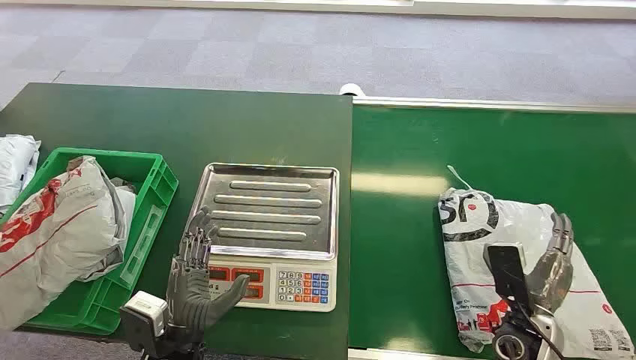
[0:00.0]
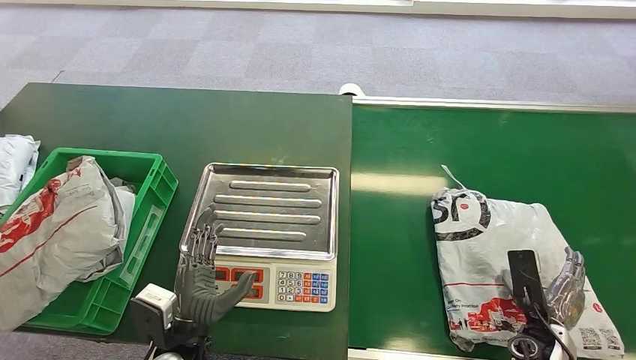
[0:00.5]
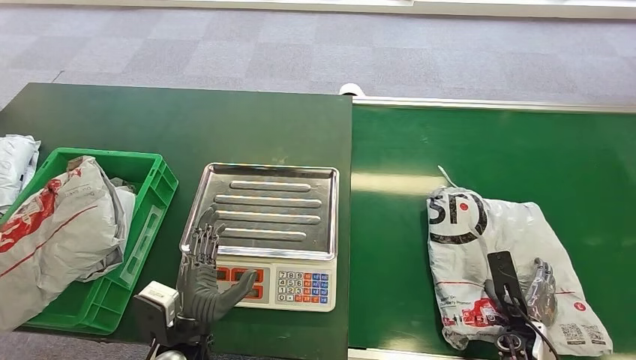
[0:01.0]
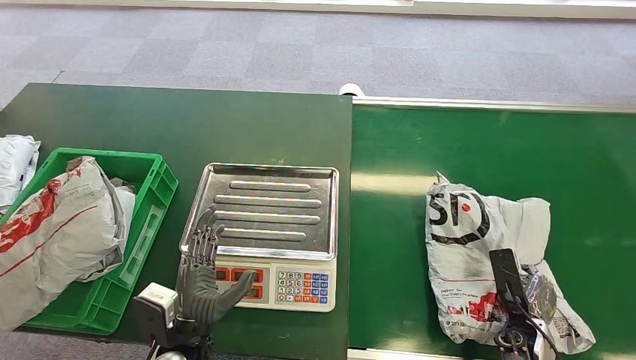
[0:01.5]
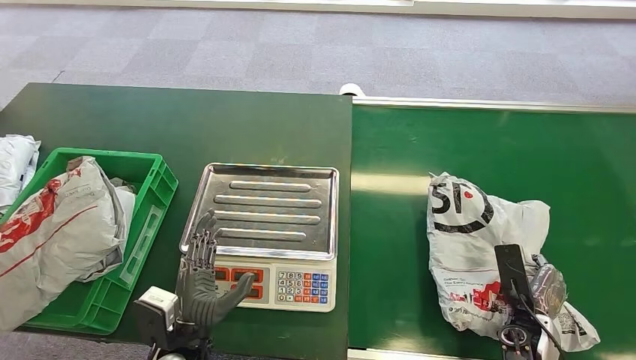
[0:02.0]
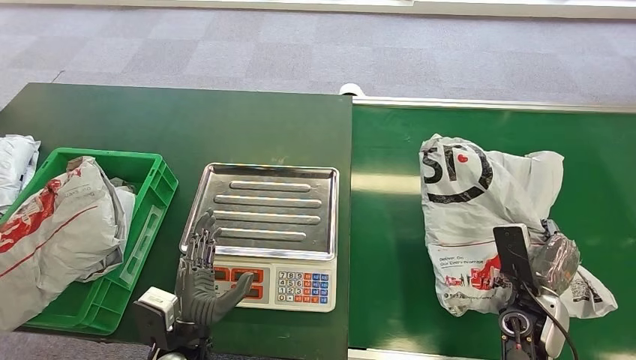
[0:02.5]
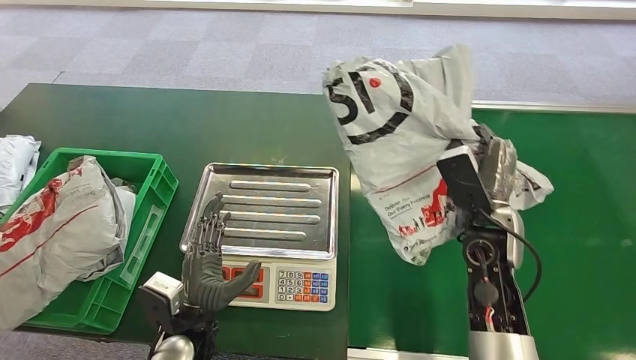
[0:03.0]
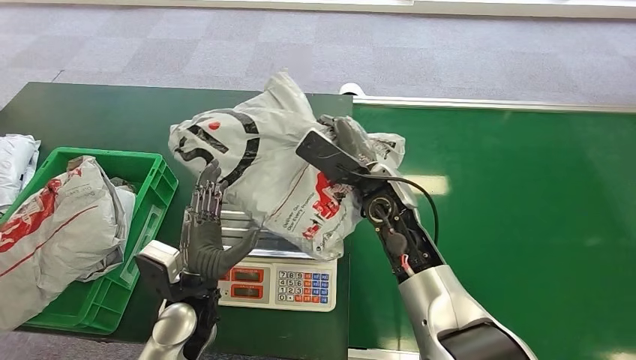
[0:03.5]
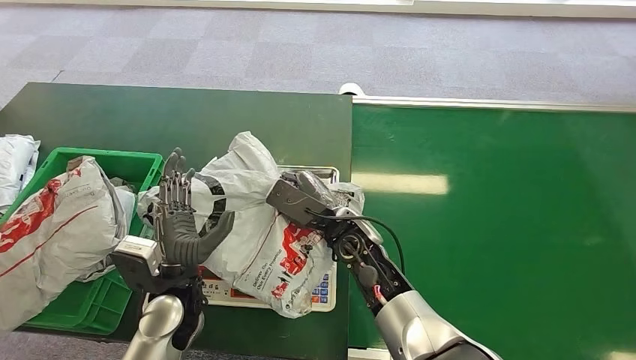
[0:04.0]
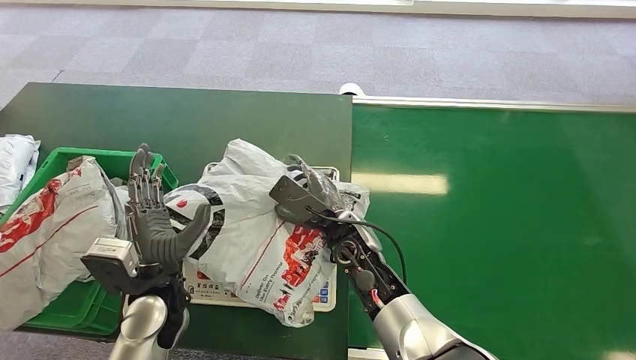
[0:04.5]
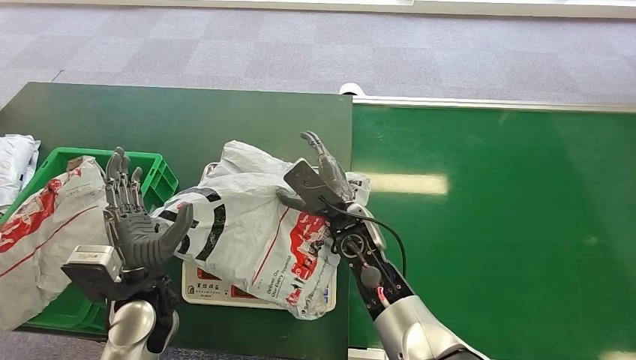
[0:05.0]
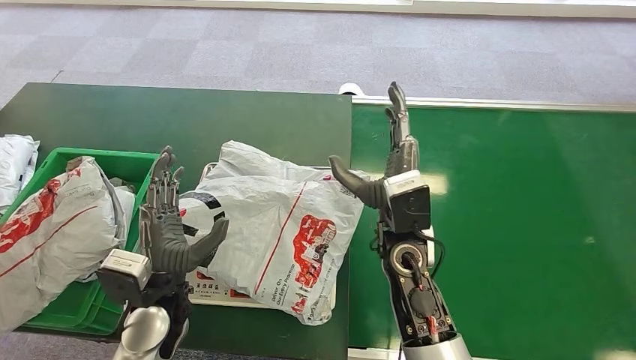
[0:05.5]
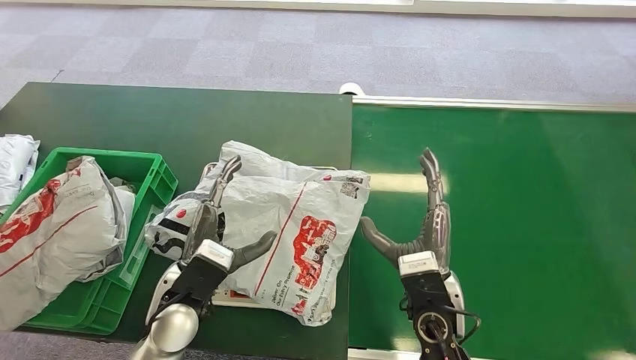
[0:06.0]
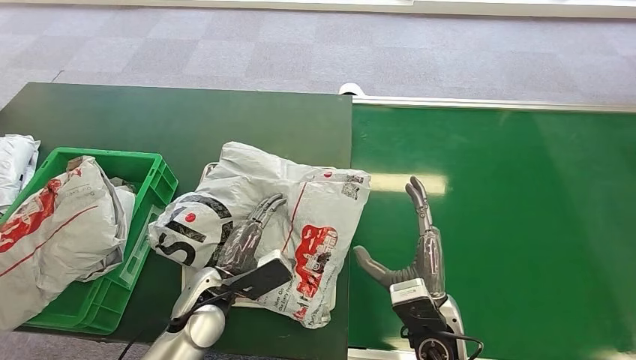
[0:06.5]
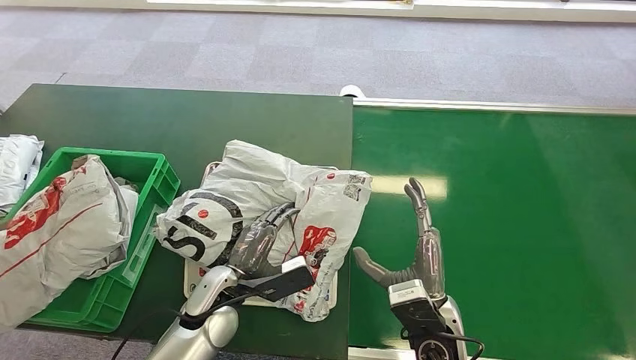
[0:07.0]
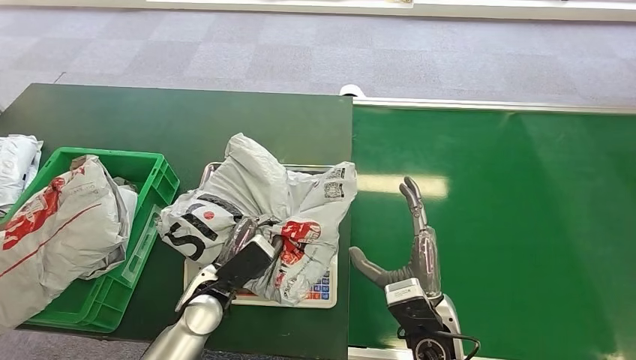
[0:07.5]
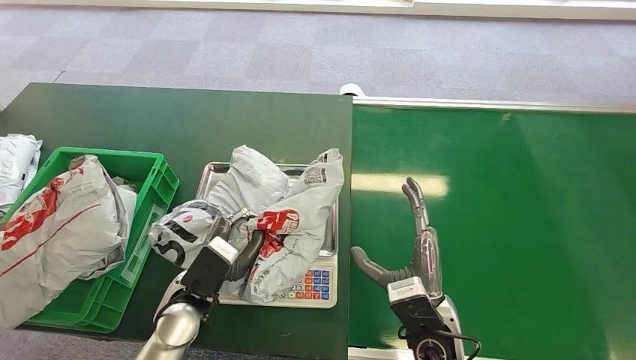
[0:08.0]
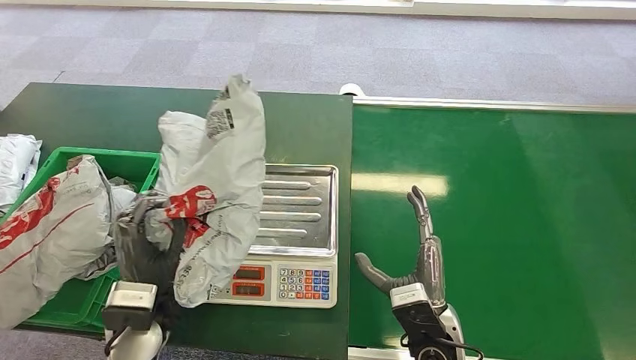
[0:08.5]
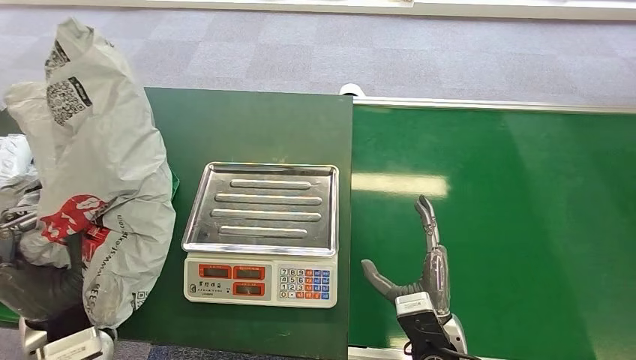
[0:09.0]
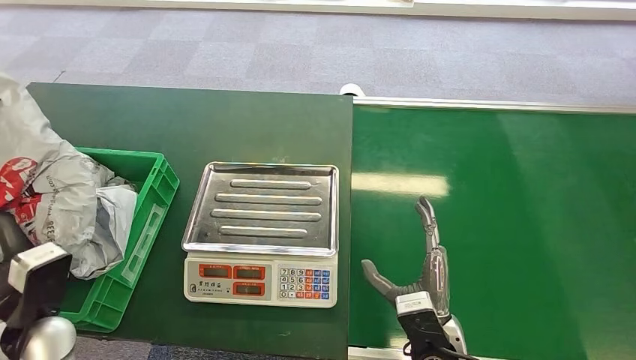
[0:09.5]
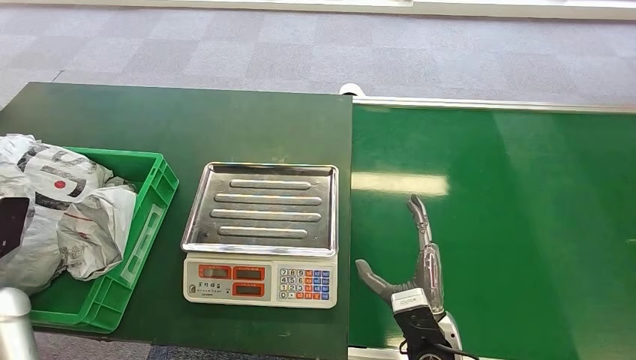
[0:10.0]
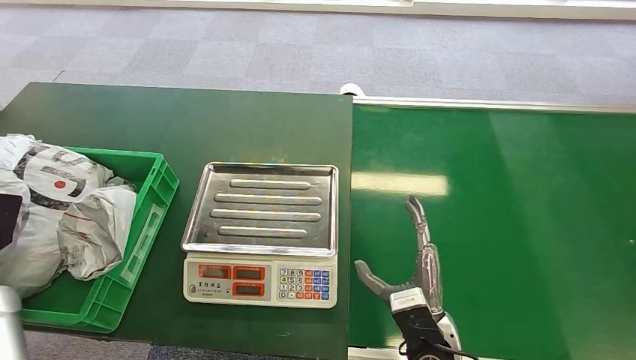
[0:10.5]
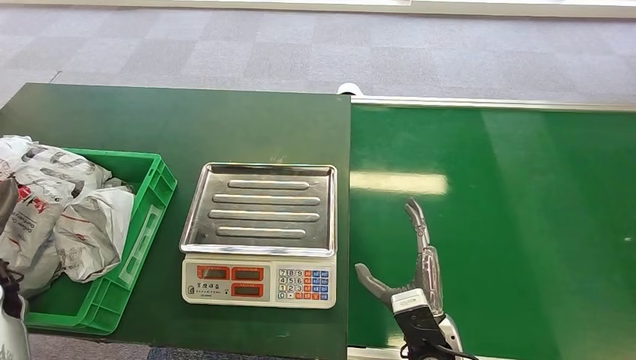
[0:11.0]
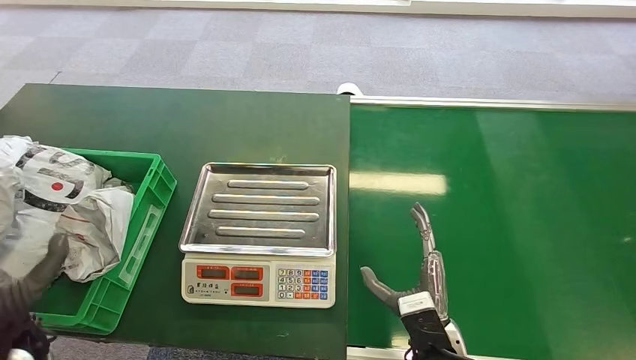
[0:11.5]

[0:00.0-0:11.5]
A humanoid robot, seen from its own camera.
Step, 0:00.0 to 0:02.0: Pick up the package from the conveyor belt.
Step, 0:03.5 to 0:05.0: Place the package onto the inbound machine.
Step, 0:07.5 to 0:08.0: Pick up the package from the inbound machine.
Step, 0:09.0 to 0:11.5: Place the package into the parcel locker.
0:04.0 to 0:06.0: The right hand shifts some 15 cm backward and to the right.
0:09.5 to 0:11.5: The left hand travels to the left and back again, some 15 cm each way.
